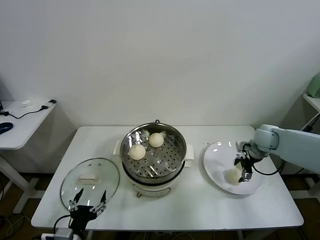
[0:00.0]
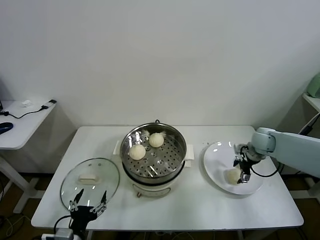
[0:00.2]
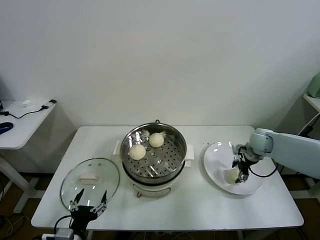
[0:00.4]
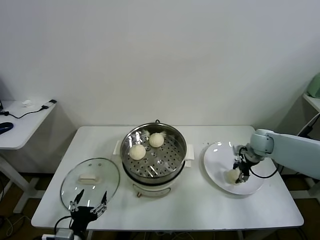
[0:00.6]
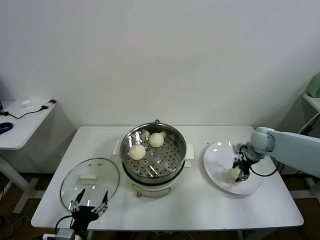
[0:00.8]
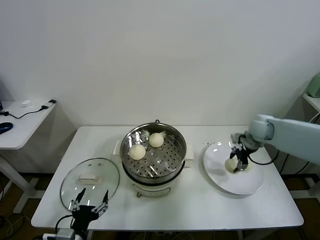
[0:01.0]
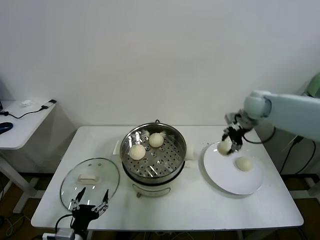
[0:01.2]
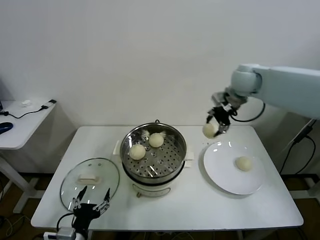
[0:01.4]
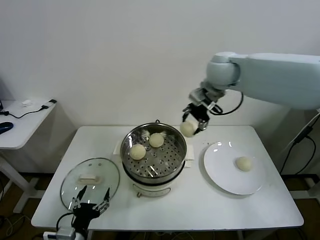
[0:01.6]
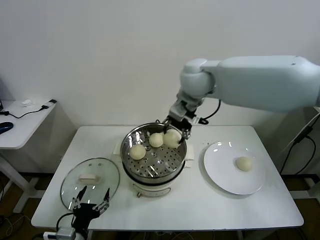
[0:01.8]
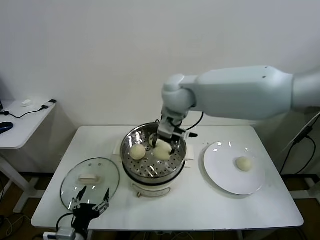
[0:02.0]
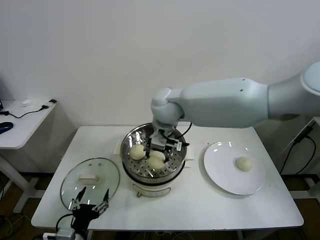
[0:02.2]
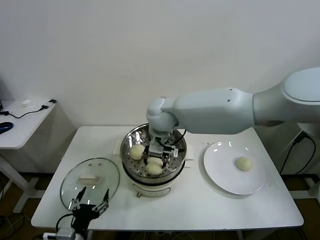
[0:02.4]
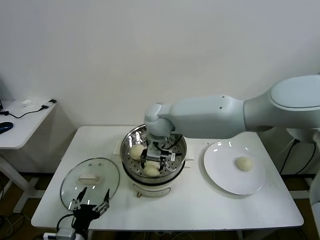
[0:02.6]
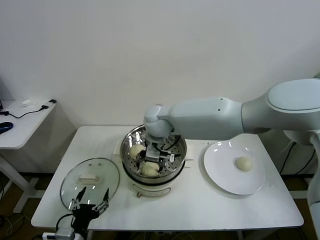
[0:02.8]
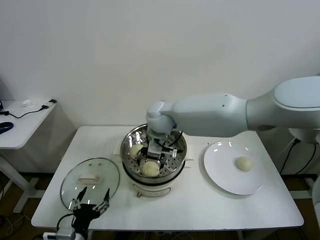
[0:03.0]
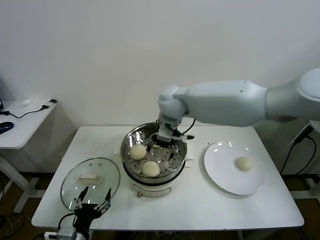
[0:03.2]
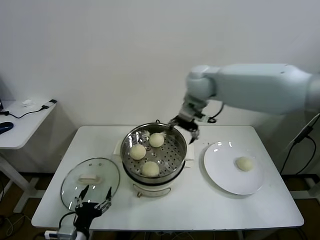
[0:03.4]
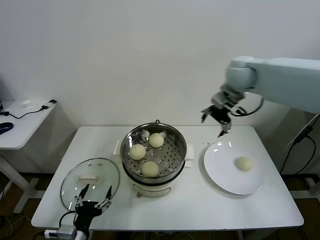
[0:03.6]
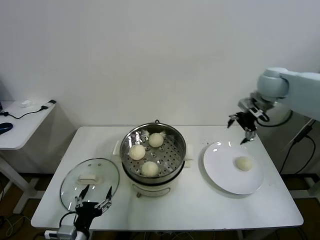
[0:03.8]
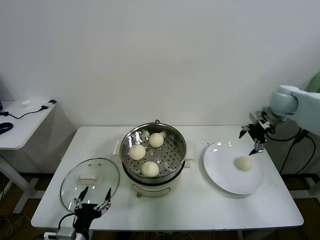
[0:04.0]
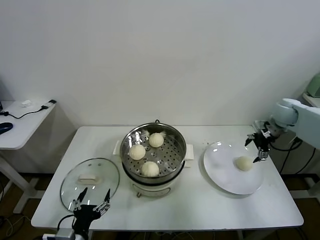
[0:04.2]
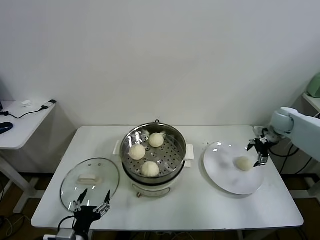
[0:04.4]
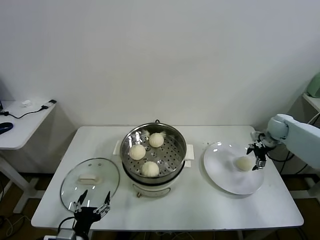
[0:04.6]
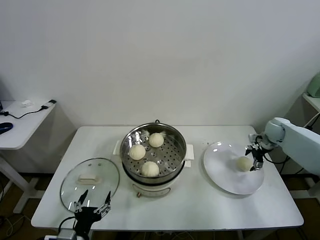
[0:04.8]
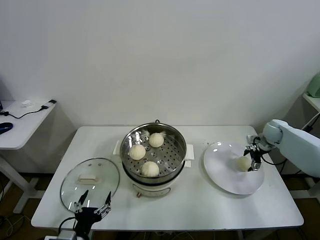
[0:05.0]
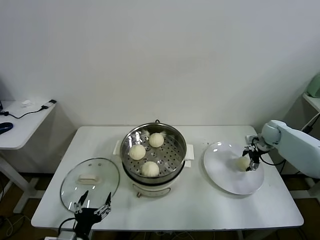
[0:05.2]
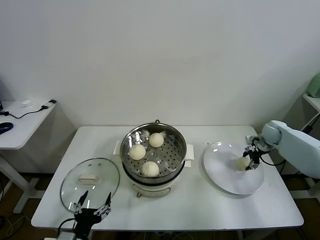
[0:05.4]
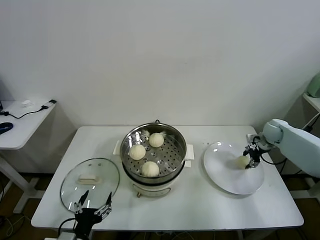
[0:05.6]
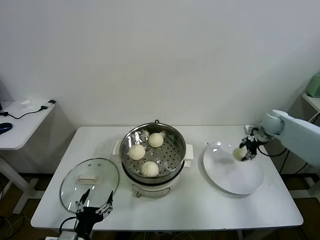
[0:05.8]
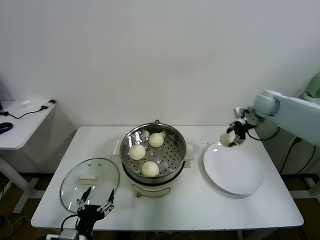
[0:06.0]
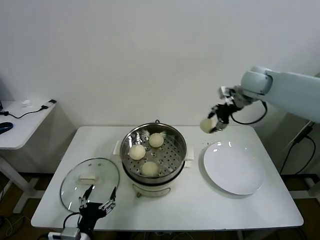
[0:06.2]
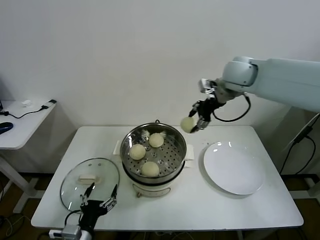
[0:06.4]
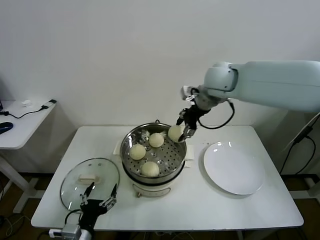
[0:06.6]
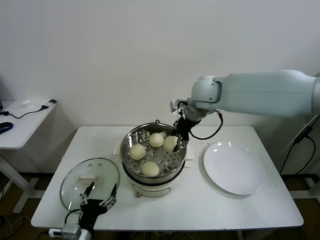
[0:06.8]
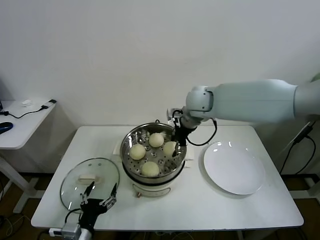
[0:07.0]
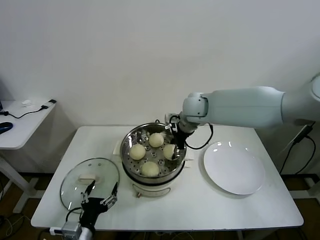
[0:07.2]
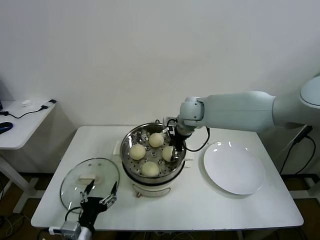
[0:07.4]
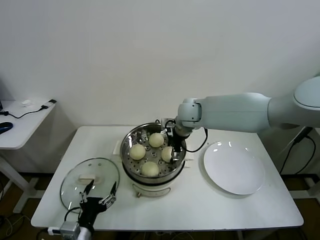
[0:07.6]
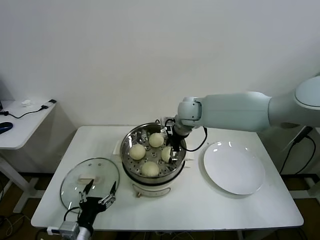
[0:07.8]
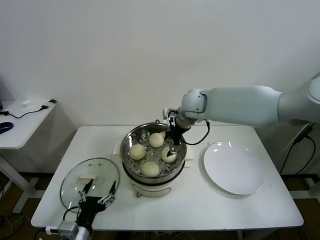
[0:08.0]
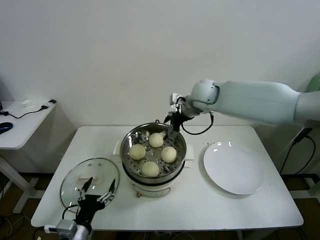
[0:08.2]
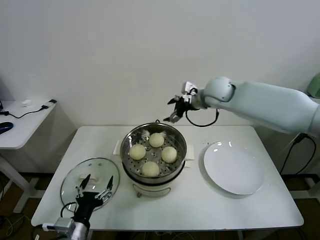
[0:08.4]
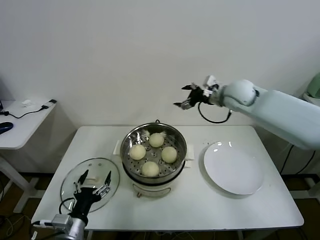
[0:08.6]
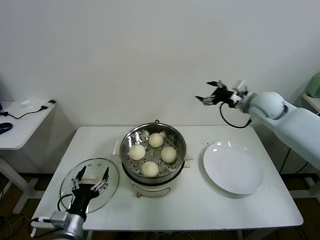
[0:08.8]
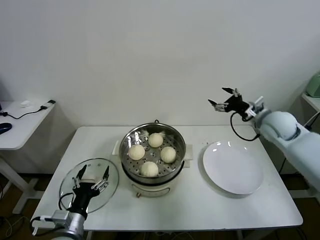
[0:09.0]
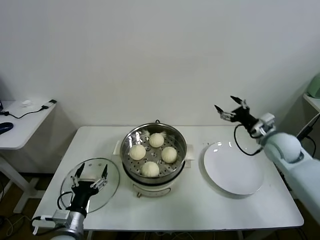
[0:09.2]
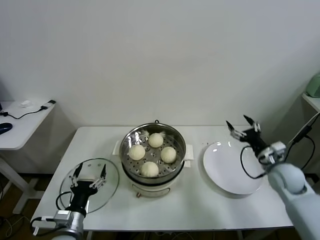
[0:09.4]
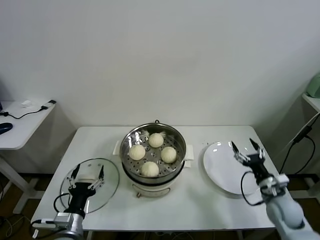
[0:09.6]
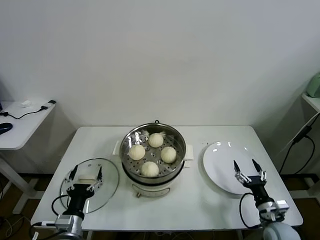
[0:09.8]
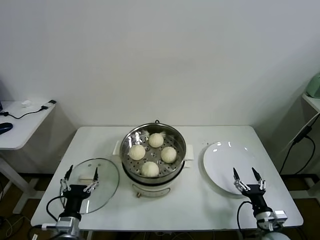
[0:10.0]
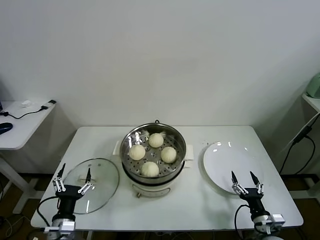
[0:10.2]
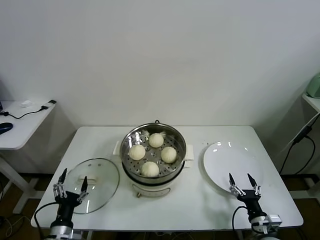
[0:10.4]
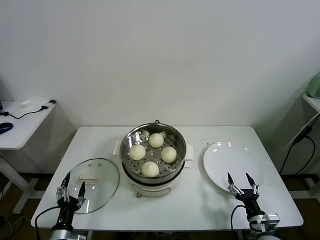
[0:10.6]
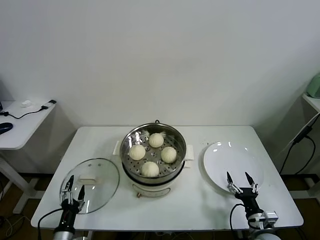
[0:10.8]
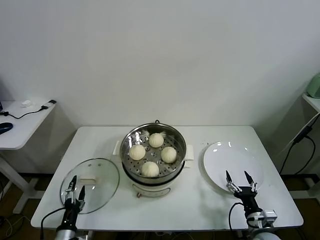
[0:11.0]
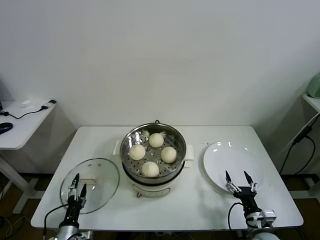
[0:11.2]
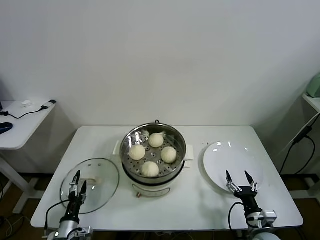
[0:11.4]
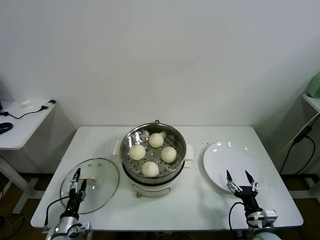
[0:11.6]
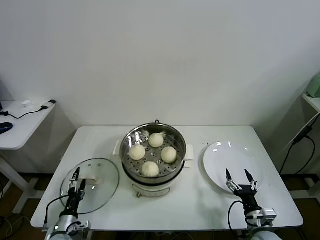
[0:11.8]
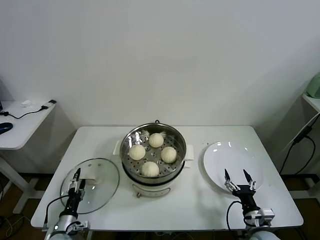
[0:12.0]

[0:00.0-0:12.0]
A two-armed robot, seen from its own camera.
Task of the whole recording: take steamed baozi put them in steamer.
Step, 0:00.6 to 0:02.8: Place the baozi on the steamer with right gripper.
Step, 0:03.0 to 0:05.2: Grasp the baozi in the plate with right gripper.
Step, 0:05.4 to 0:07.6: Place the baozi on the steamer with right gripper.
0:00.0 to 0:01.6: The right gripper heads upward and to the left, covering some 35 cm, and closes up.
0:01.6 to 0:03.0: The right gripper moves to the left and downward, approximately 20 cm, and opens up.
0:03.0 to 0:04.4: The right gripper heads to the right, covering some 50 cm.
0:04.4 to 0:06.0: The right gripper is displaced to the left and upward by roughly 10 cm, and closes its fingers.
0:06.0 to 0:07.6: The right gripper heads to the left, covering approximately 25 cm, and opens up.
0:07.6 to 0:09.0: The right gripper moves to the right, some 25 cm.
0:09.0 to 0:10.4: The left gripper is displaced downward by some 5 cm, while the right gripper shifts approximately 40 cm downward and backward.
0:10.4 to 0:12.0: The left gripper is displaced downward and forward by roughly 10 cm.

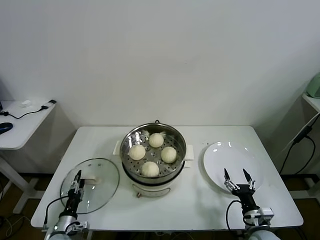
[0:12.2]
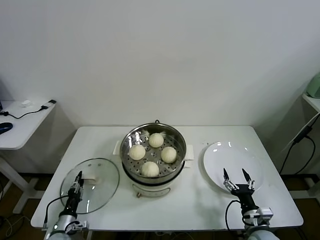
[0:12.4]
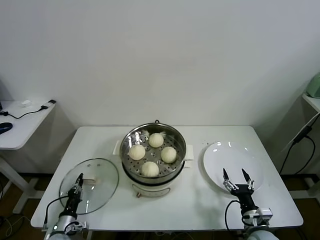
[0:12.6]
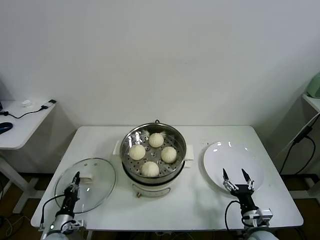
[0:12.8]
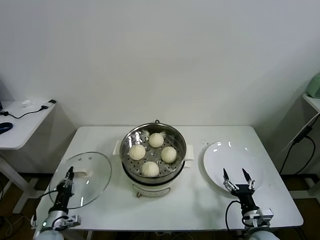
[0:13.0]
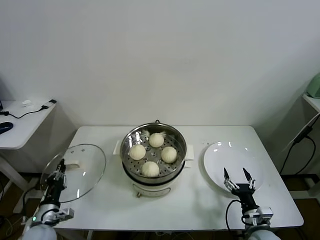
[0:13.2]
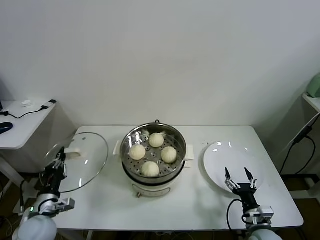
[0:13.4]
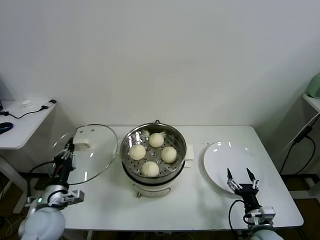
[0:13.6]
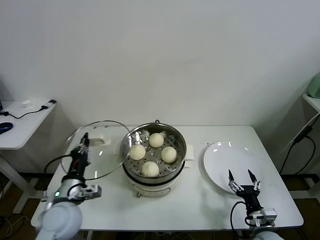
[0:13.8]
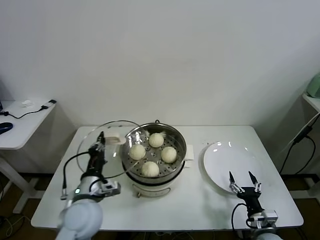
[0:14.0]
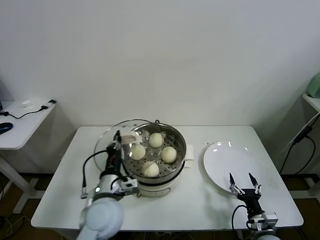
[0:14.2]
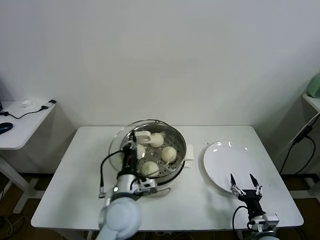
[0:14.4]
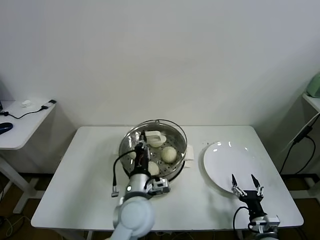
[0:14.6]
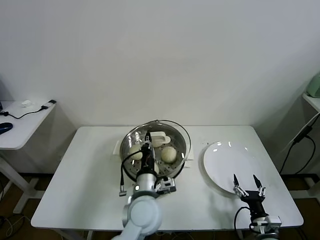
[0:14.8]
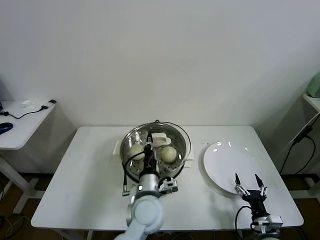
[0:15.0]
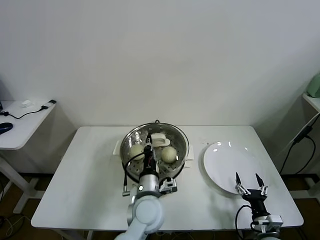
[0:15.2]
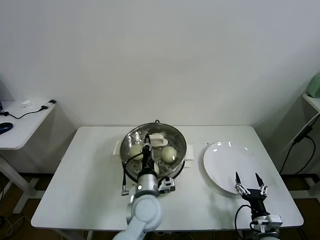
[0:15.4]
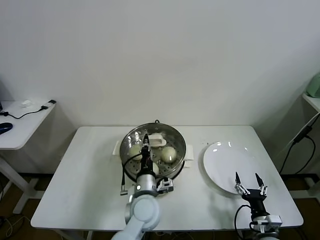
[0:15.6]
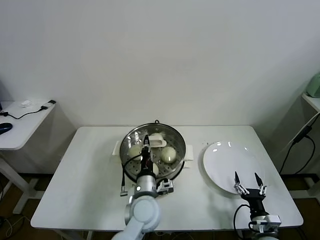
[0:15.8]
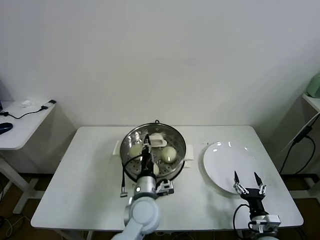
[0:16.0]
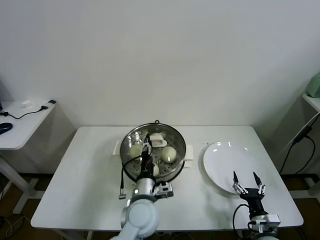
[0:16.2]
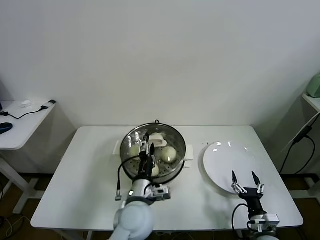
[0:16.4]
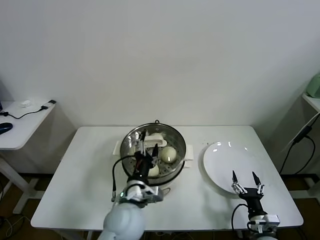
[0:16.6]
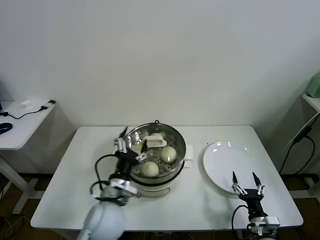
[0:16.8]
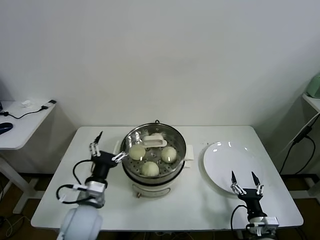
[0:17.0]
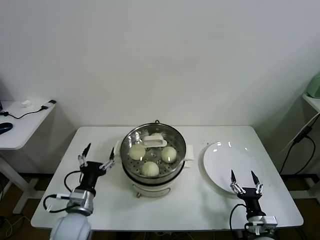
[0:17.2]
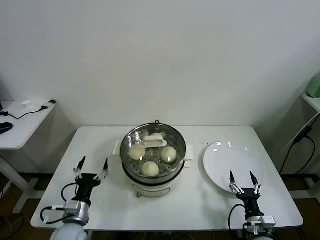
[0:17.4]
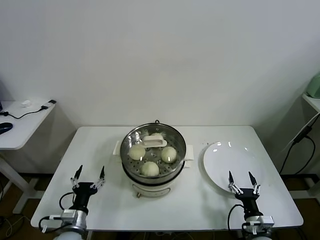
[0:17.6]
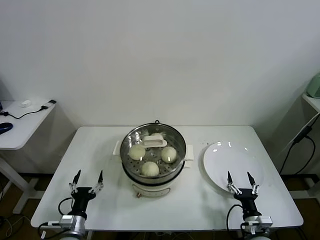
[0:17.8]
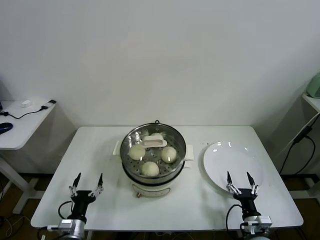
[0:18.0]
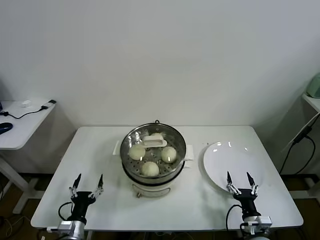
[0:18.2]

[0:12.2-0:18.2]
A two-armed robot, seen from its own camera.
Task of the whole recording: take steamed baozi put them in steamer.
Step, 0:12.8 to 0:16.0: Place the pot lid on the steamer with left gripper.
0:12.2 to 0:13.8: The left gripper travels upward by approximately 25 cm, and closes.
0:13.8 to 0:15.2: The left gripper travels to the right by some 25 cm.
0:15.2 to 0:16.6: The left gripper changes place by roughly 5 cm, and opens up.
0:16.6 to 0:18.2: The left gripper travels to the left and downward by some 25 cm.
